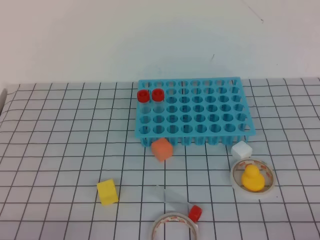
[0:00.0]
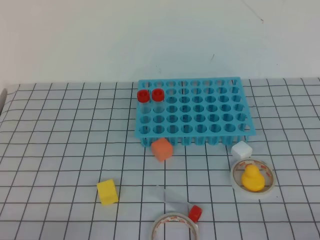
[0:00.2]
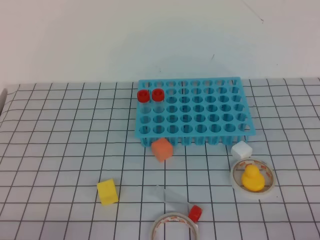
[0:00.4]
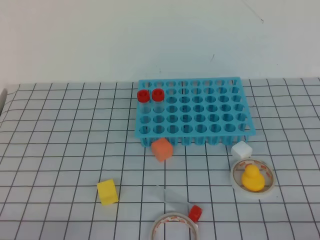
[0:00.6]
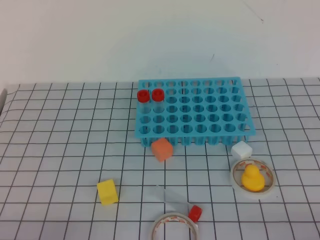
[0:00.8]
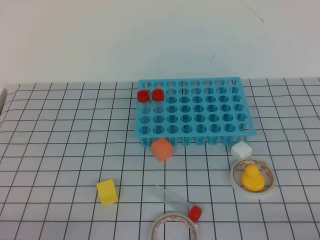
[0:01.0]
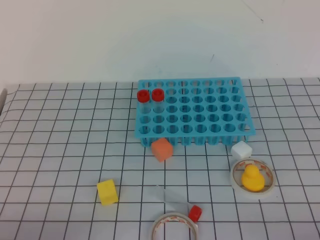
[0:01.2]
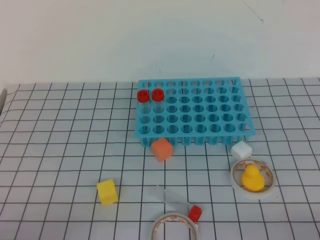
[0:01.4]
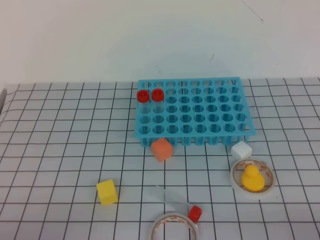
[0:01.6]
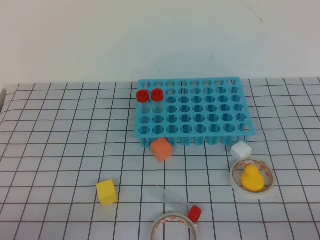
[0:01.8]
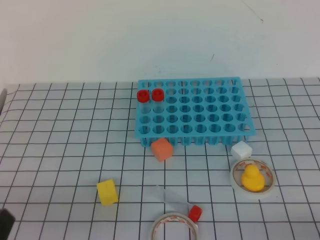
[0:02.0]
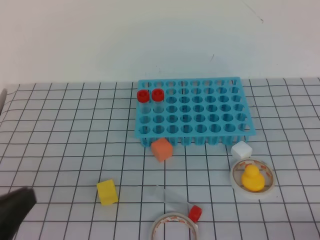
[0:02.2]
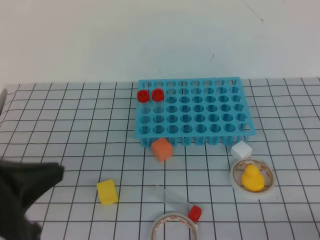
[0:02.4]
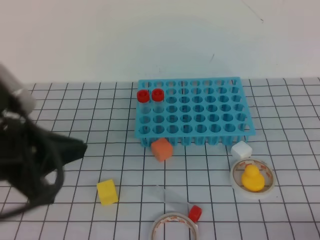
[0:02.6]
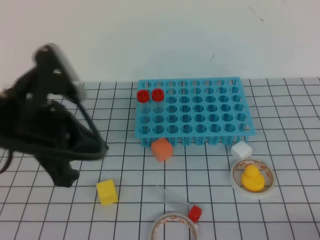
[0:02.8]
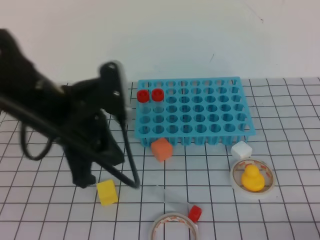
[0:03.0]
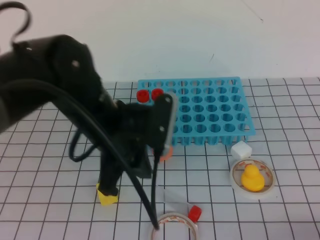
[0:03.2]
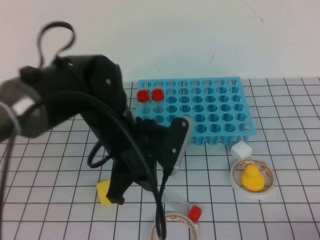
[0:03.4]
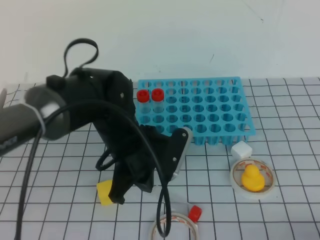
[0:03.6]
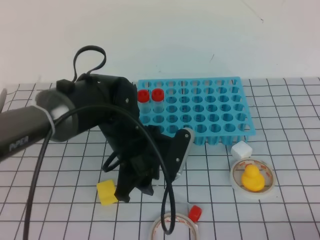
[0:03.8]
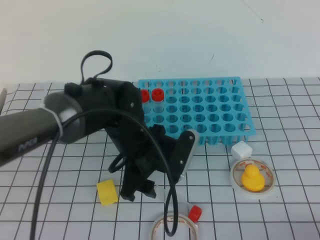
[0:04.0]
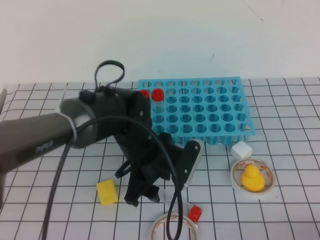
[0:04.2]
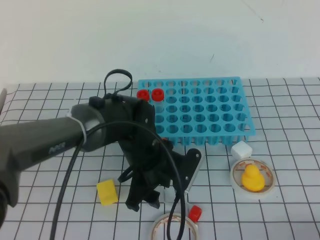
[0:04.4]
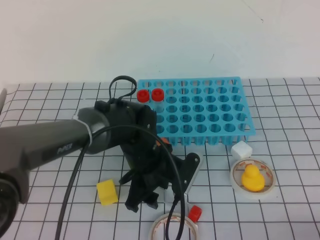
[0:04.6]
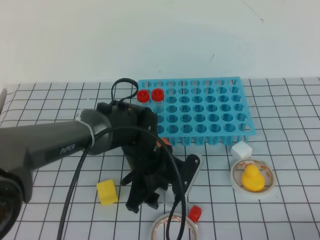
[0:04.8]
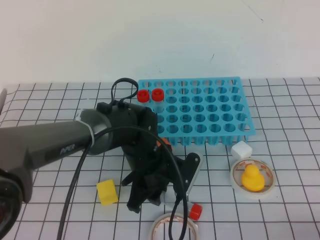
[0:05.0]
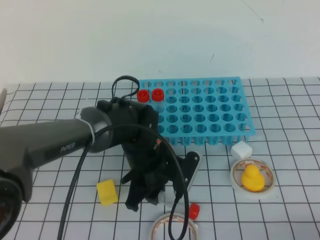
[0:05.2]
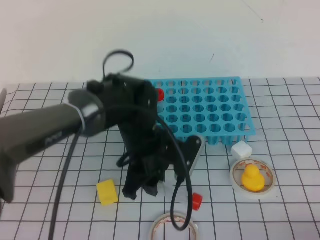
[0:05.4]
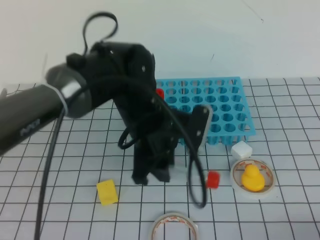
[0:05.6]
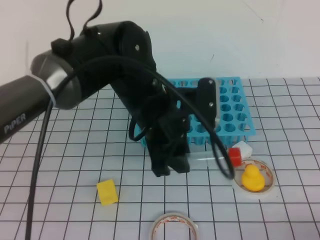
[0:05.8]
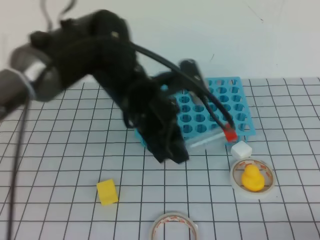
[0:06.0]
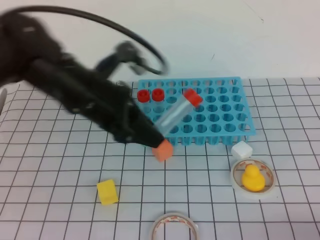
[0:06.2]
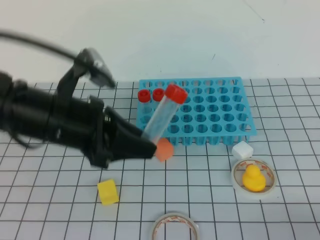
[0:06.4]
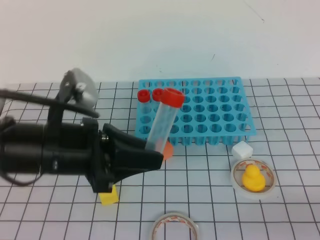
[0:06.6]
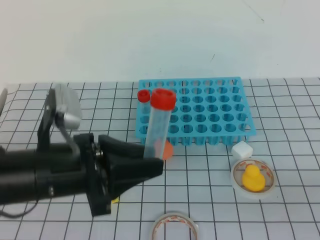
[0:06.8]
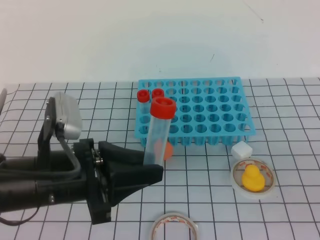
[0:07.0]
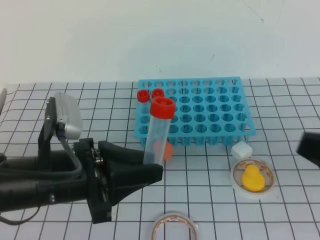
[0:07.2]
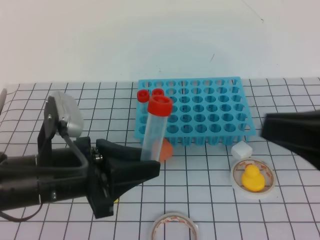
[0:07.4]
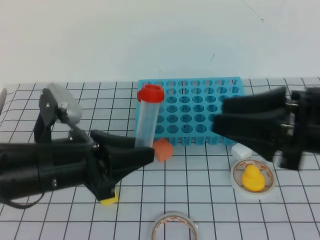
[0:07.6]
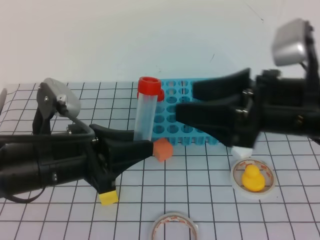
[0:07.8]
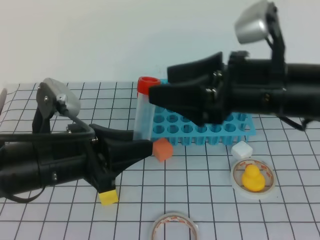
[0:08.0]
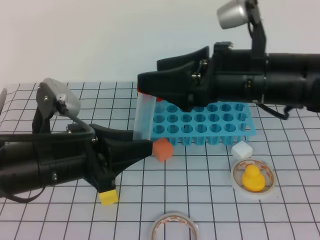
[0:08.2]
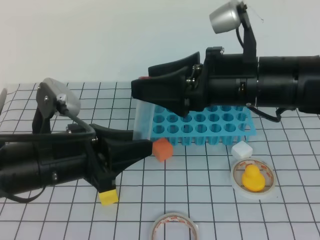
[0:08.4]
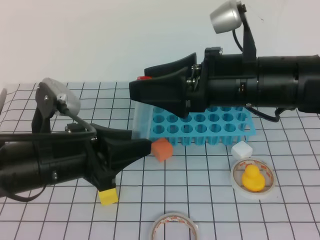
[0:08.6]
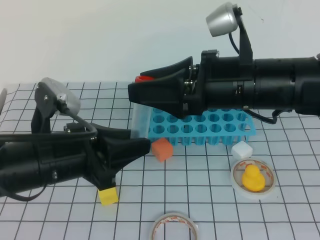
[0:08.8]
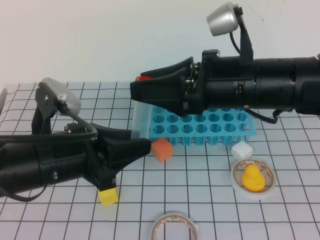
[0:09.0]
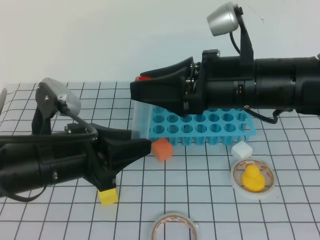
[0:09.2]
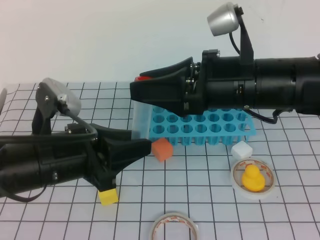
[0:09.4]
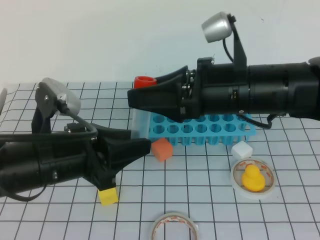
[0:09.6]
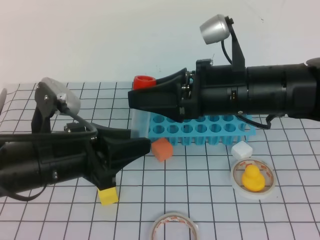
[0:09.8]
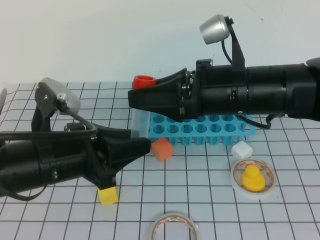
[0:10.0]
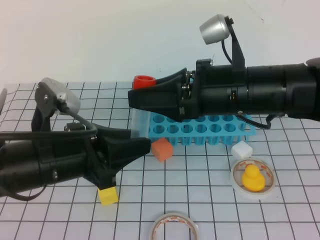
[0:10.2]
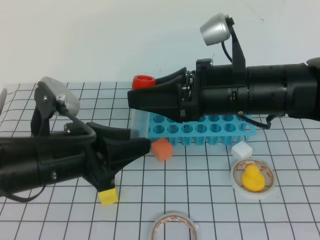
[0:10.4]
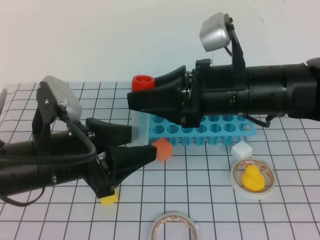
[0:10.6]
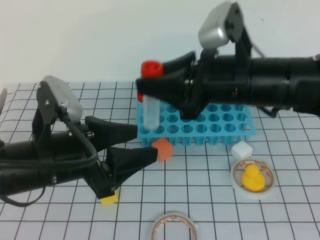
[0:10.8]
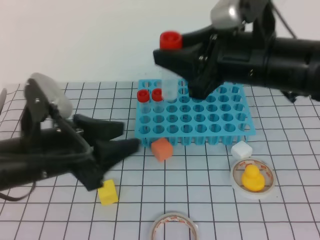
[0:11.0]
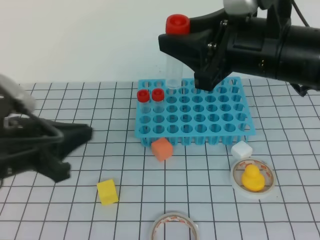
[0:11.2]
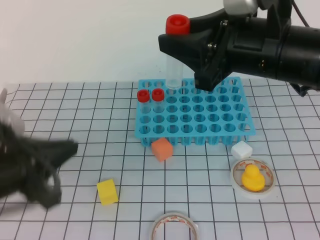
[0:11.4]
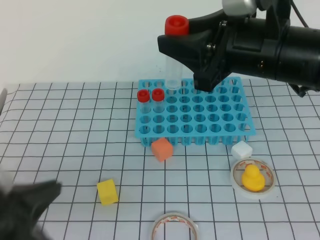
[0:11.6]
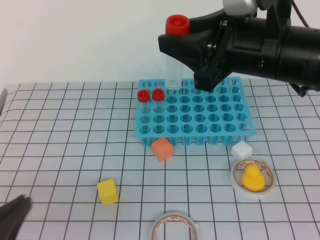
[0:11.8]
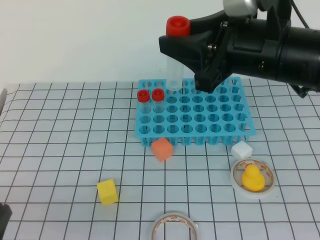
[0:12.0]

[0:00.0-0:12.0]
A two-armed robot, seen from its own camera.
0:01.6 to 0:03.0: The left gripper shifts some 25 cm forward, upward and to the right.
0:03.0 to 0:04.4: The left gripper travels downward, to the right and forward by roughly 20 cm, and opens its fingers.
0:04.4 to 0:06.0: The left gripper moves upward, some 10 cm, and closes up.
0:06.0 to 0:07.6: The right gripper heads forward, upward and to the left, covering about 25 cm, and opens up; the left gripper is displaced backward and to the left by roughly 15 cm.
0:07.6 to 0:09.0: The right gripper is displaced to the left and forward by some 15 cm.
0:09.0 to 0:10.4: The grippers stay close to where they were, moving slightly.
0:10.4 to 0:12.0: The left gripper moves backward and to the left, about 20 cm, and closes. Meanwhile the right gripper ends up approximately 5 cm from where it was.

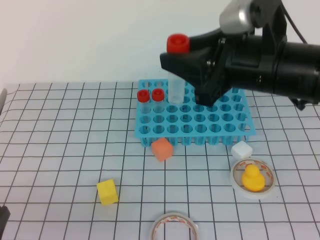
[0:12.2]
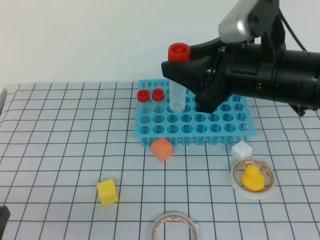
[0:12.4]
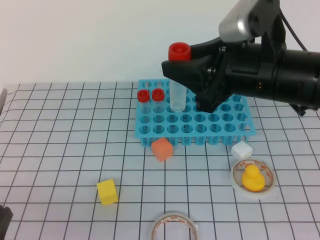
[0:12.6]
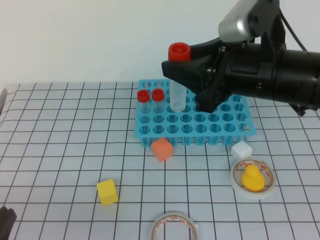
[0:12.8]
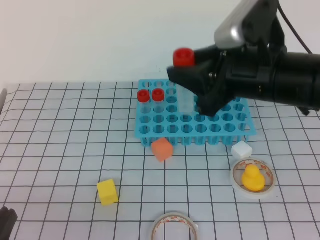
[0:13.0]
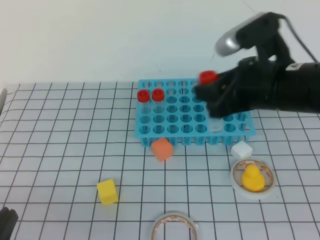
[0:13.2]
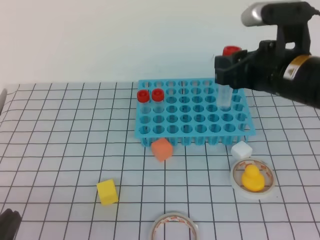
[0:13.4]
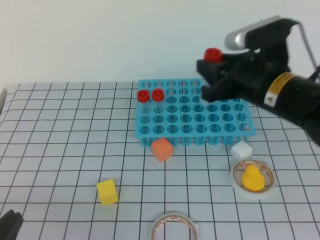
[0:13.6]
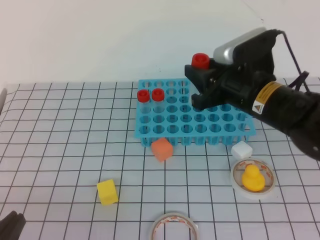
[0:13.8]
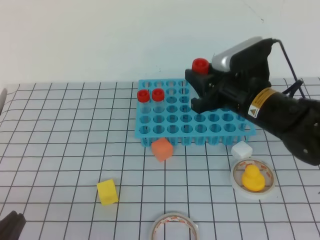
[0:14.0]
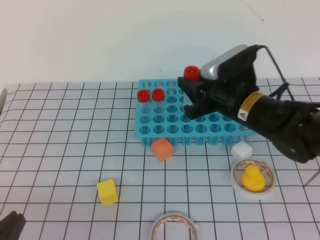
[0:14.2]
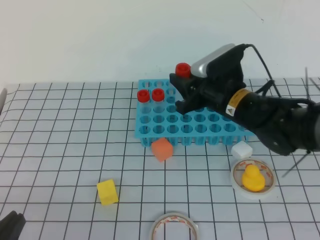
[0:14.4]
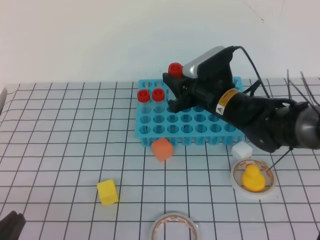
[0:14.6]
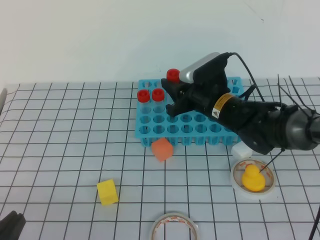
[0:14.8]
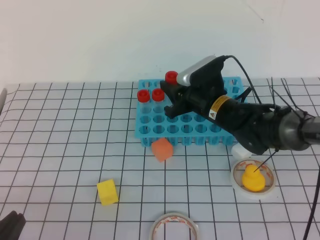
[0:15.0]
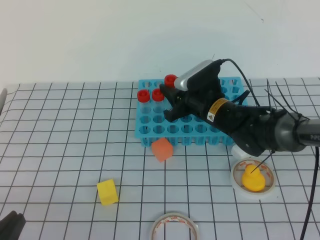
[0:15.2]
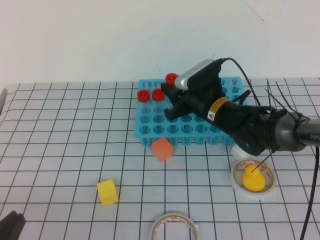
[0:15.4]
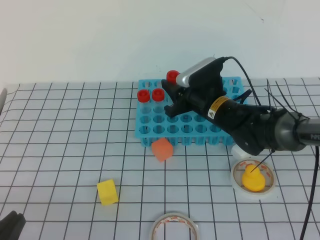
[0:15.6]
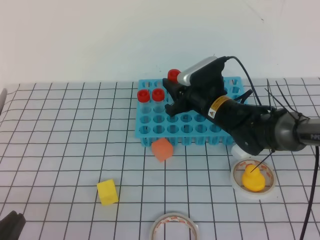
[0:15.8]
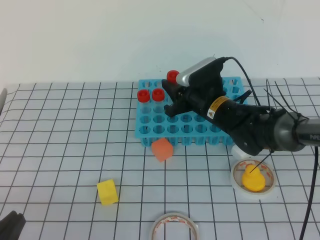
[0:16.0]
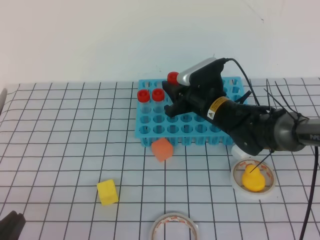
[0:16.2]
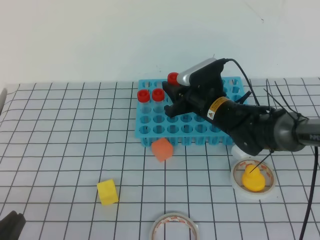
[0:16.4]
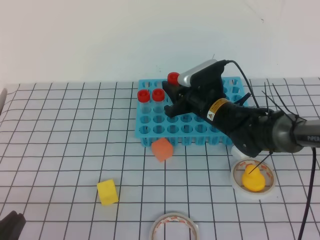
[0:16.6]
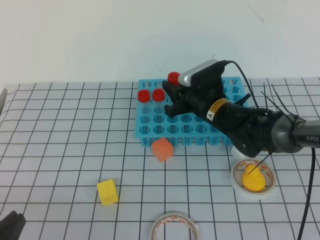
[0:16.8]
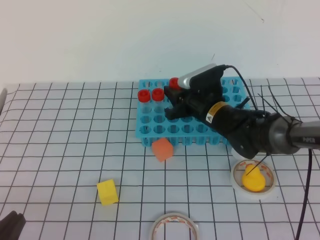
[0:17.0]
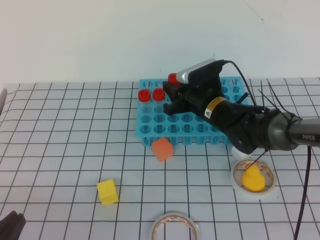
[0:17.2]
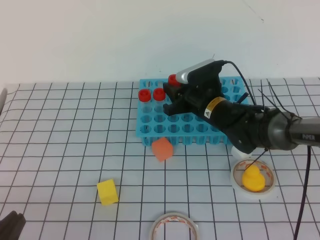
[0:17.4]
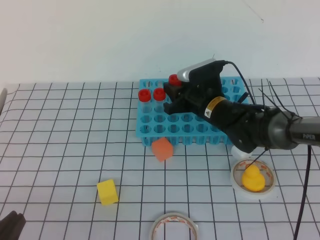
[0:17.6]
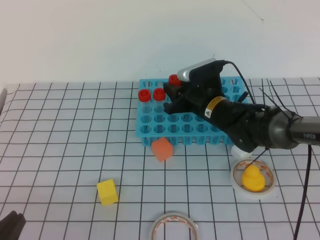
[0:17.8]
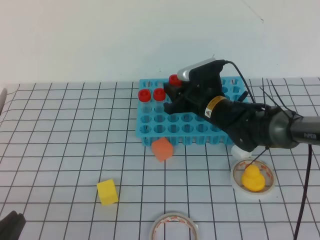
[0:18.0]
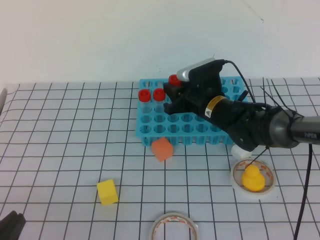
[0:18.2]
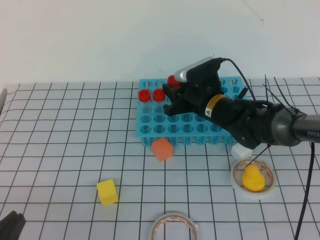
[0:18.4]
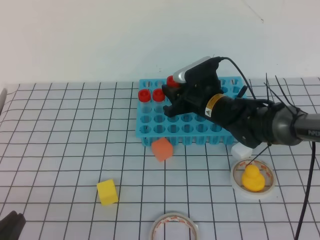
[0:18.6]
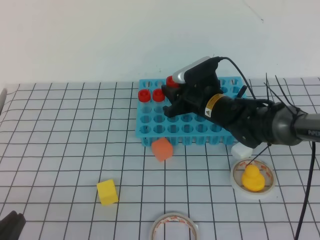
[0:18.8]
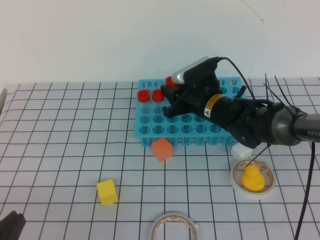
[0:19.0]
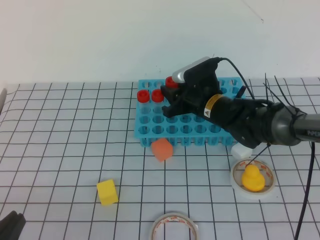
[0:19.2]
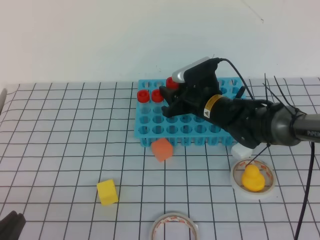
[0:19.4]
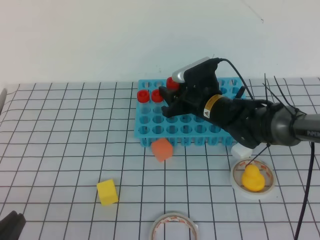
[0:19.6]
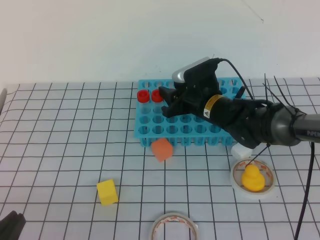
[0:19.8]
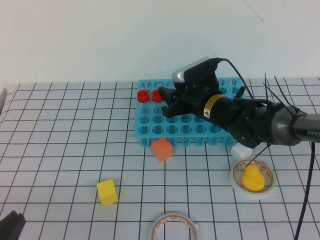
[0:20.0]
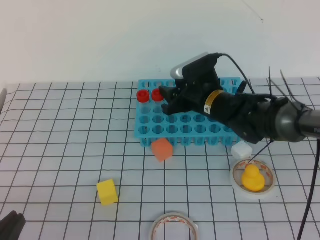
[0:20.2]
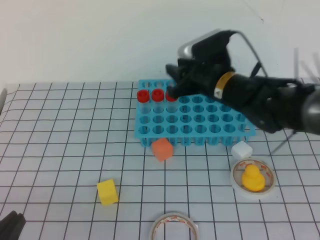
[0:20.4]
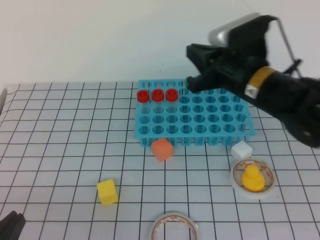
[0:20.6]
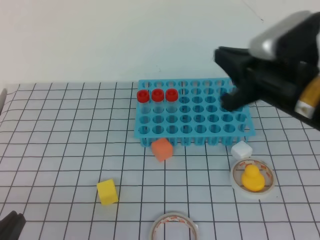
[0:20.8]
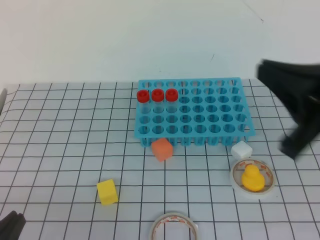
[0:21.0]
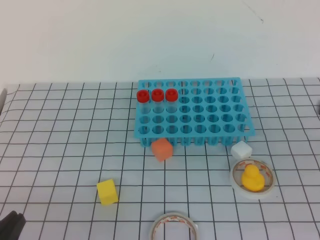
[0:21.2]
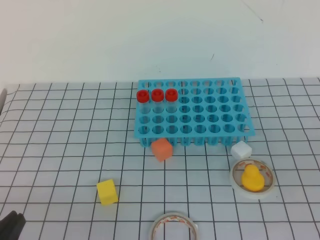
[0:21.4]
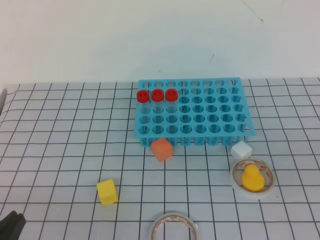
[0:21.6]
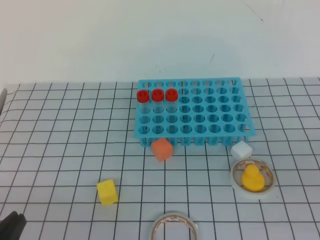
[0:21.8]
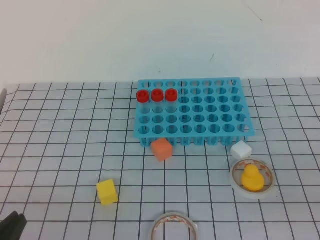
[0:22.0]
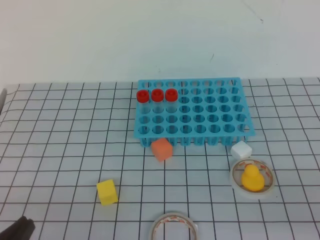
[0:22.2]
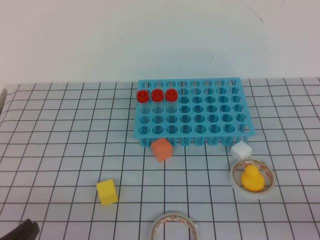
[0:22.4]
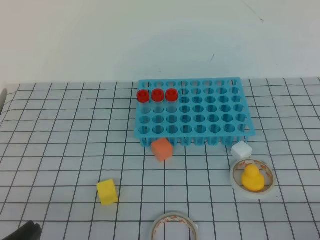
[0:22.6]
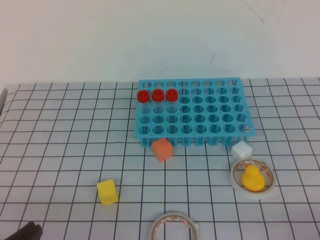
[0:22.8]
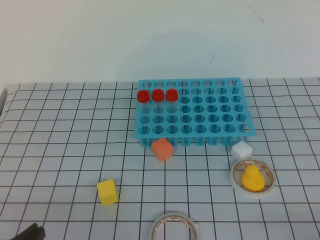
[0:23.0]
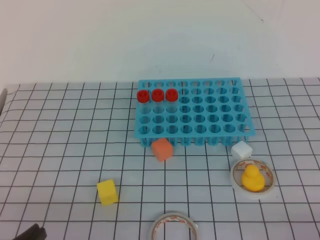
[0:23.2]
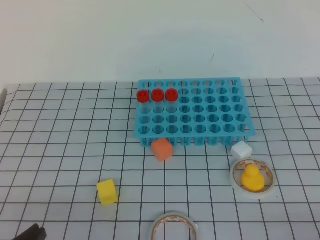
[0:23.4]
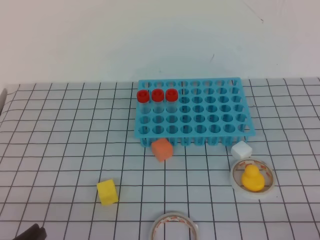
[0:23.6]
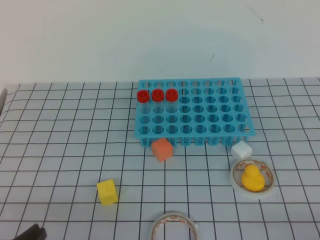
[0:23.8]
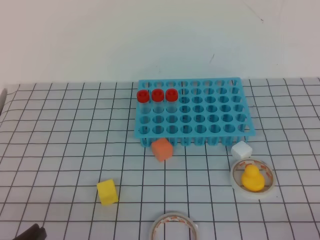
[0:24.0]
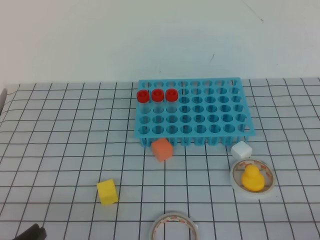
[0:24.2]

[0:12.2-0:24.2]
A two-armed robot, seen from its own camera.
0:12.2 to 0:13.8: The right gripper travels downward by about 10 cm.
0:13.8 to 0:15.2: The right gripper heads downward and forward, covering approximately 15 cm.
0:15.2 to 0:16.6: Both grippers stay put.
0:16.6 to 0:19.8: The grippers make only small movements.
0:19.8 to 0:21.2: The right gripper heads backward, upward and to the right, covering approximately 40 cm, and closes.
0:21.2 to 0:22.6: The right gripper is displaced downward, to the right and backward by some 20 cm.
